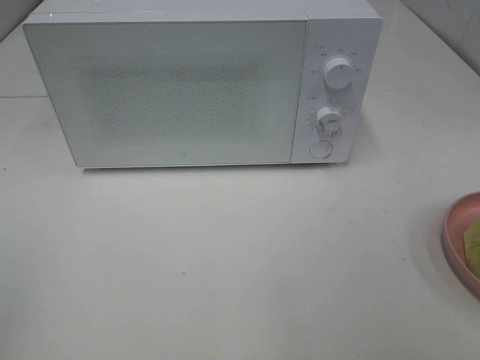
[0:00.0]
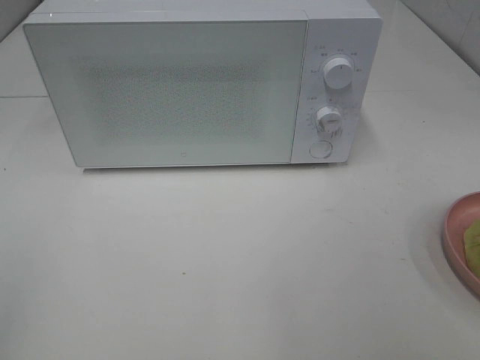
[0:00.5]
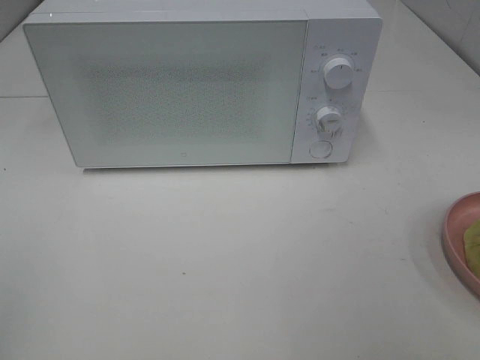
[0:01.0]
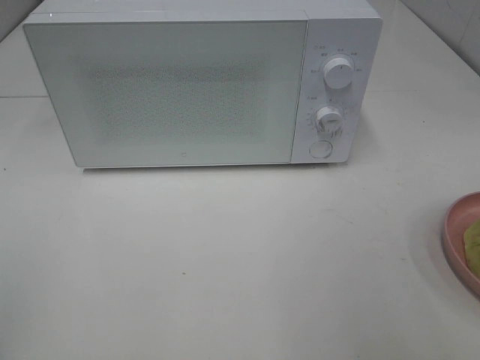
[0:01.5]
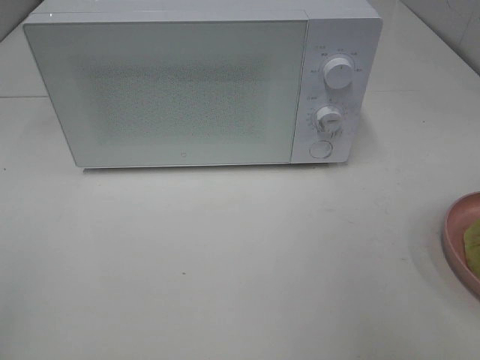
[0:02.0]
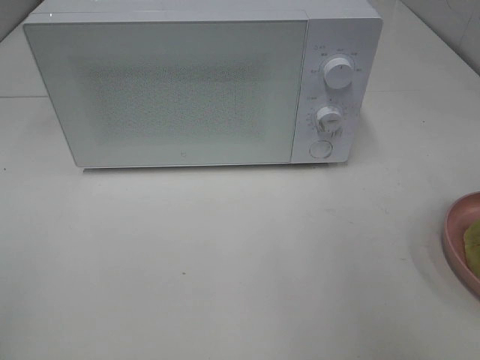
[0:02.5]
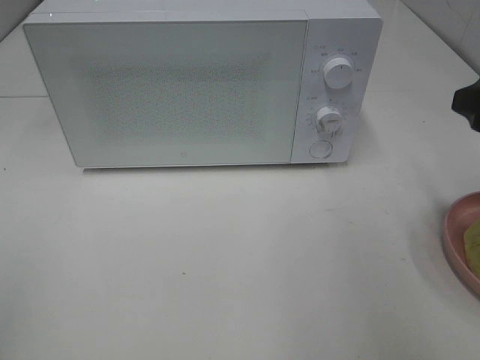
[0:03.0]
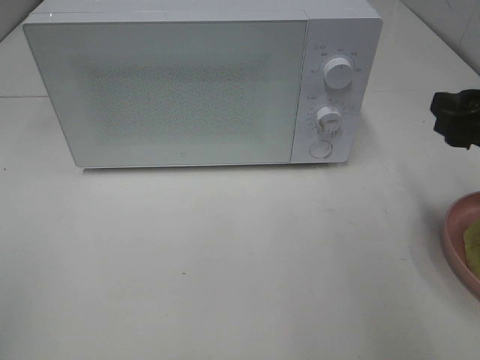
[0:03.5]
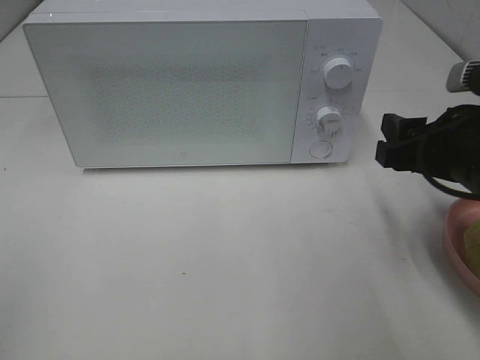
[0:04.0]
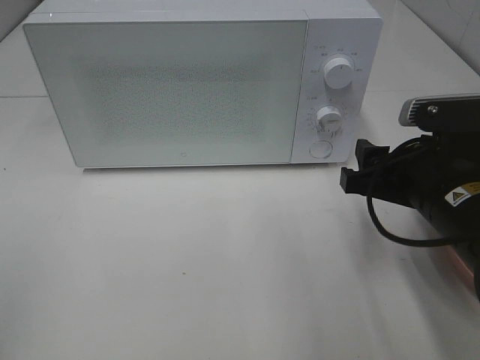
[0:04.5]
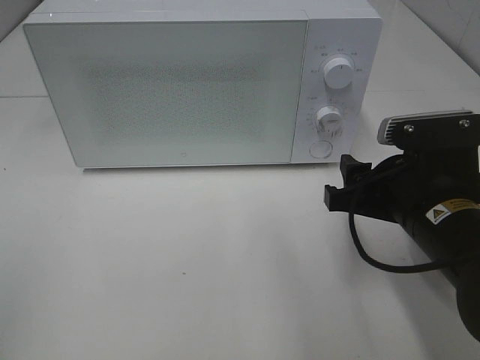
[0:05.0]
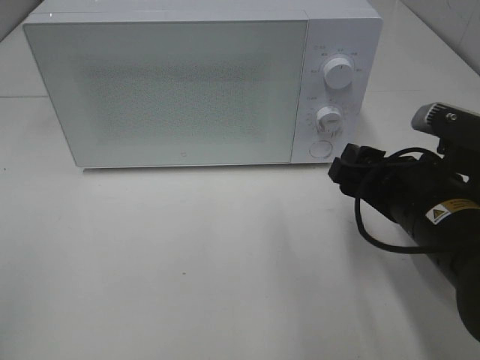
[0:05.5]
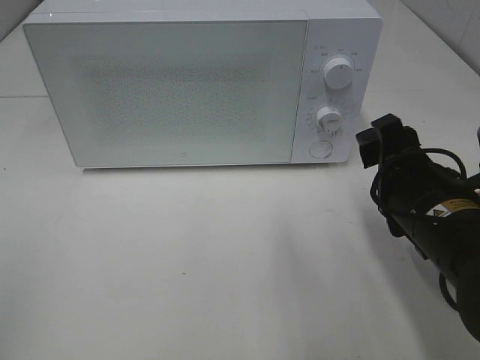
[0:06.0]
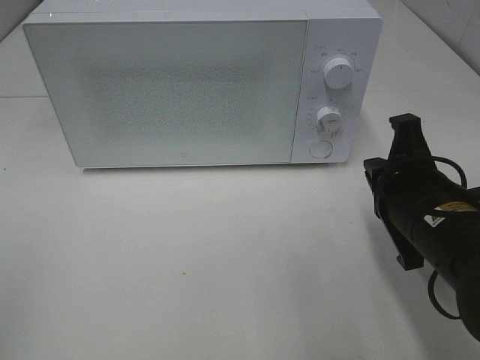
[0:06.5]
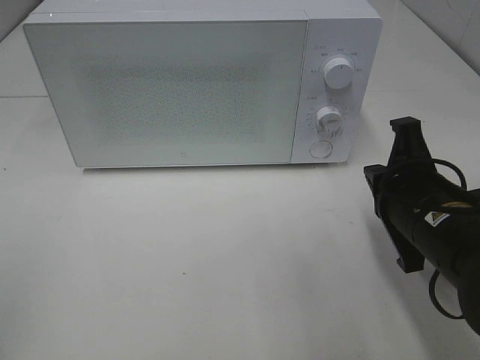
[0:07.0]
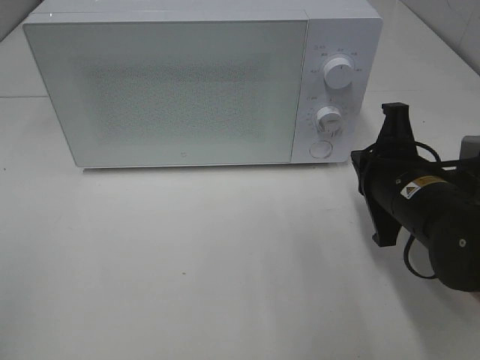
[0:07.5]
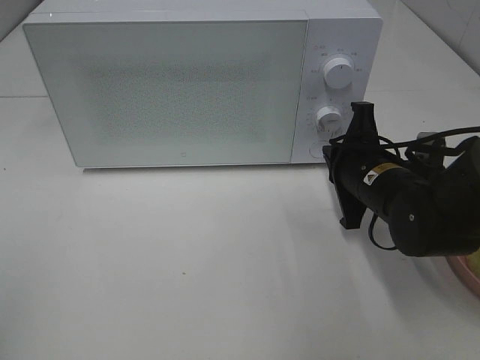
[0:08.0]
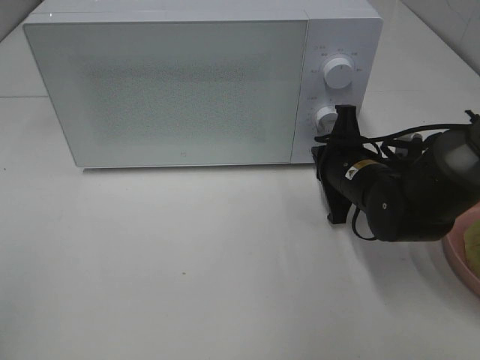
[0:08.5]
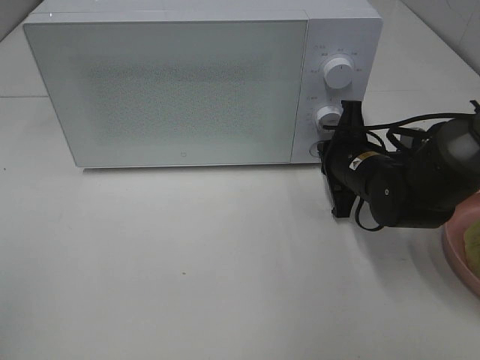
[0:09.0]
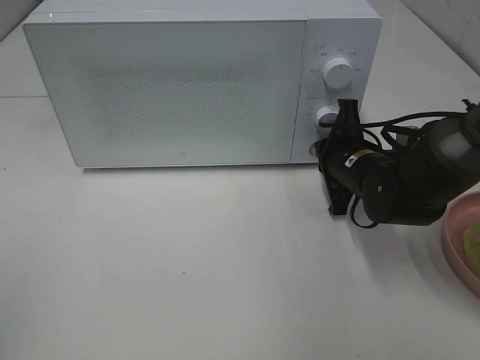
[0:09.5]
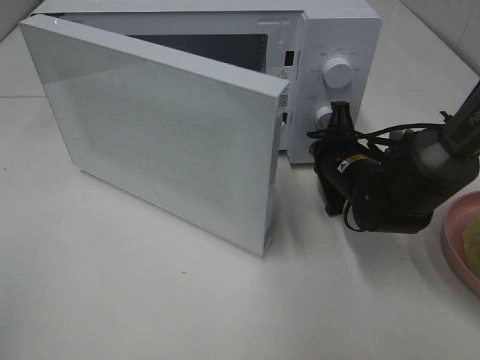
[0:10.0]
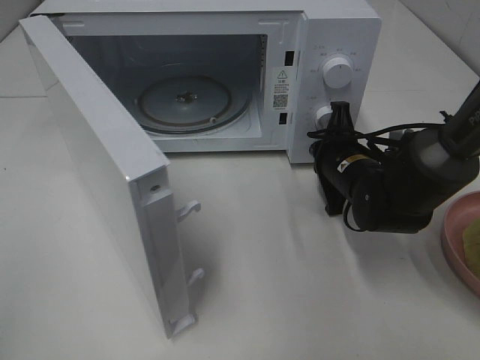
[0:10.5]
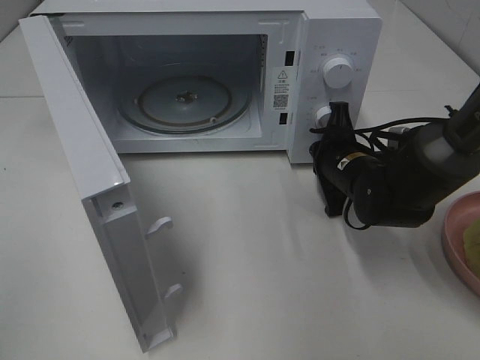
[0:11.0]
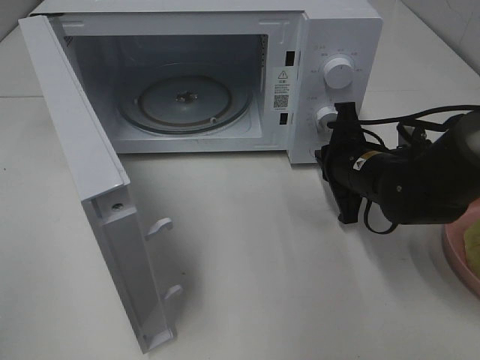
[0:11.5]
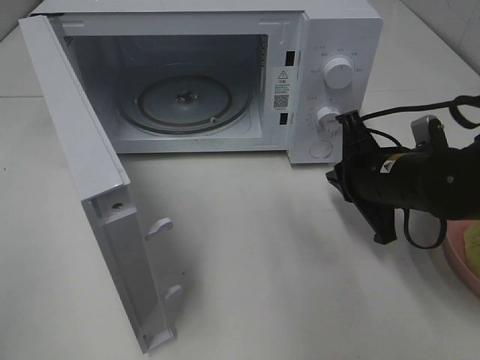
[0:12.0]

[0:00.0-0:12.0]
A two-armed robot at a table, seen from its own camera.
Task of the whole recording: Heat Sandwich.
Step, 0.0 to 11.5 s: Right hand: press the switch.
2.0 to 4.0 s: The right gripper goes roughly 15 cm downward, forward and to the left.
4.0 to 6.0 s: The right gripper moves approximately 5 cm.
6.0 to 8.0 s: The right gripper goes about 10 cm forward, and closes up.
8.0 to 10.0 s: The right gripper goes approximately 5 cm forward.
10.0 to 12.0 s: The right gripper is displaced backward by roughly 5 cm.

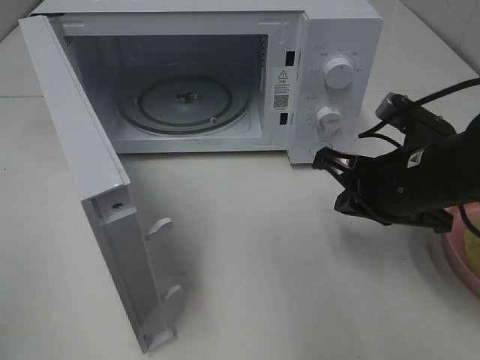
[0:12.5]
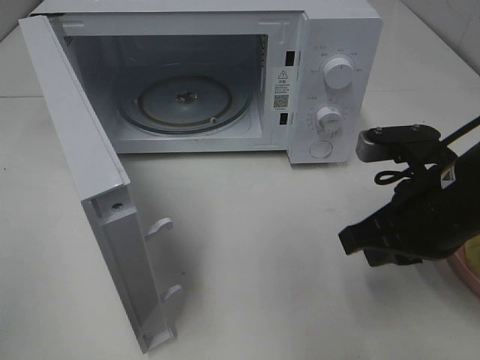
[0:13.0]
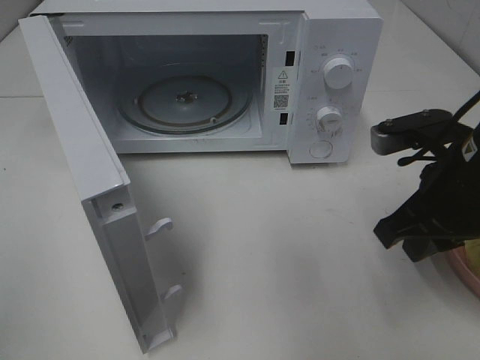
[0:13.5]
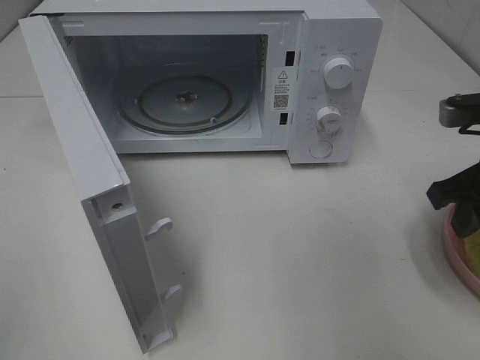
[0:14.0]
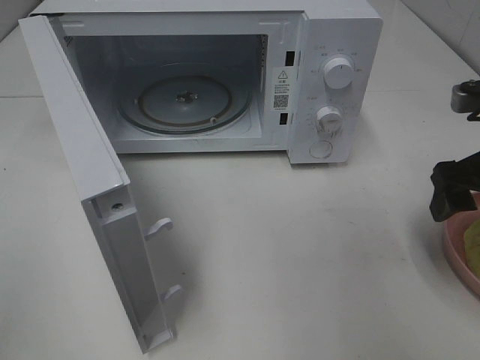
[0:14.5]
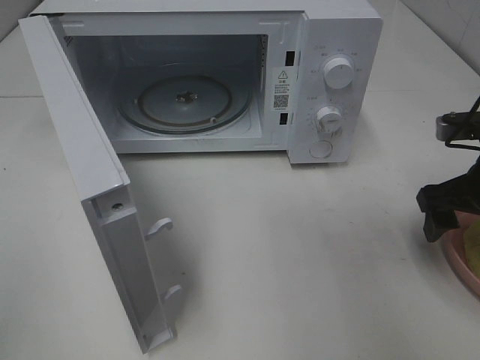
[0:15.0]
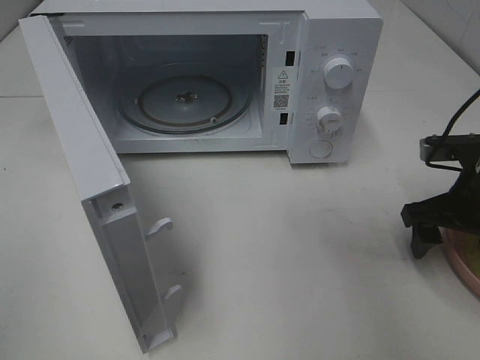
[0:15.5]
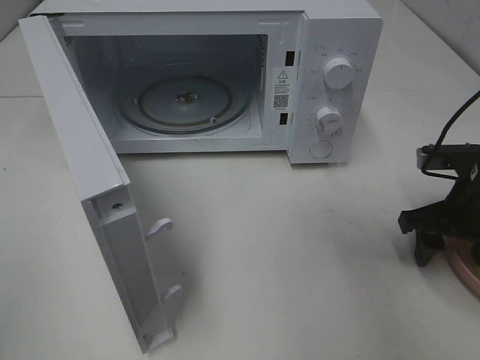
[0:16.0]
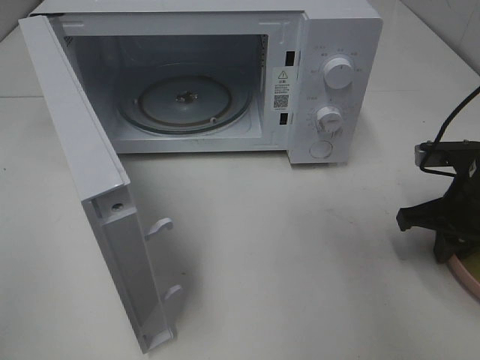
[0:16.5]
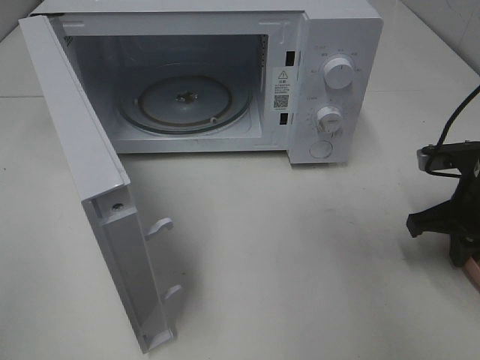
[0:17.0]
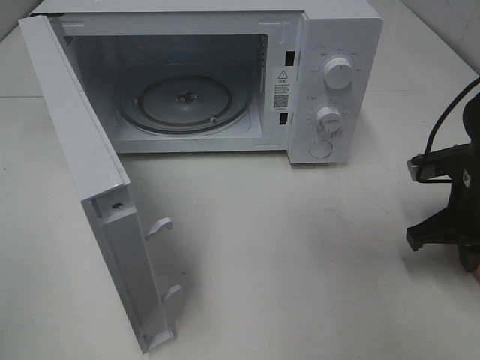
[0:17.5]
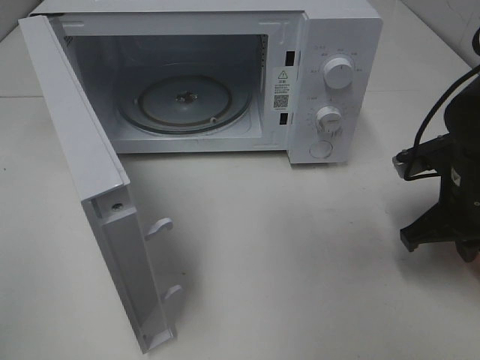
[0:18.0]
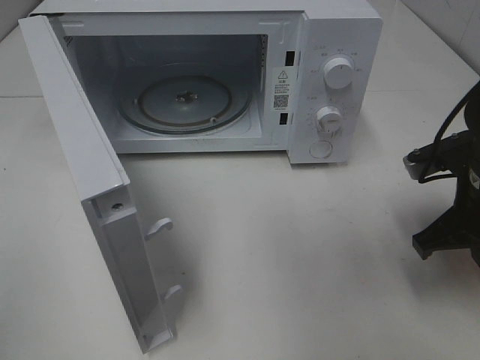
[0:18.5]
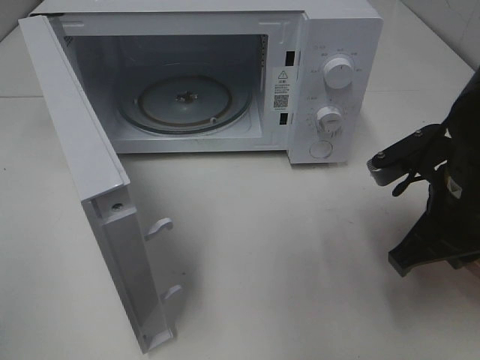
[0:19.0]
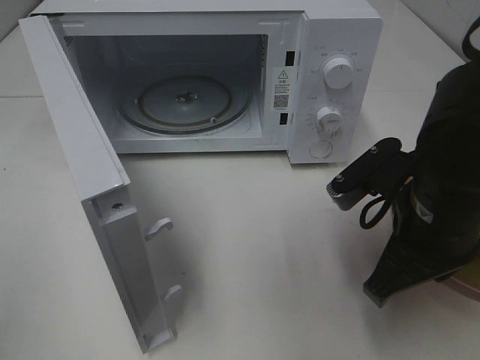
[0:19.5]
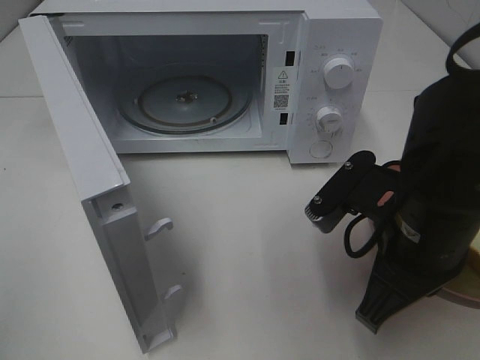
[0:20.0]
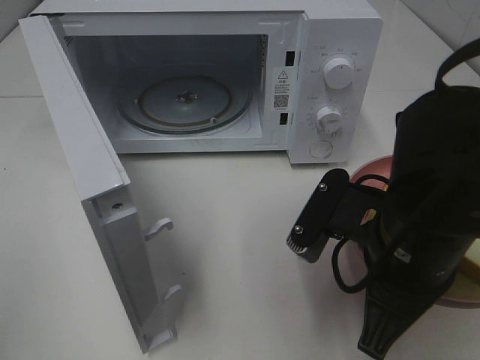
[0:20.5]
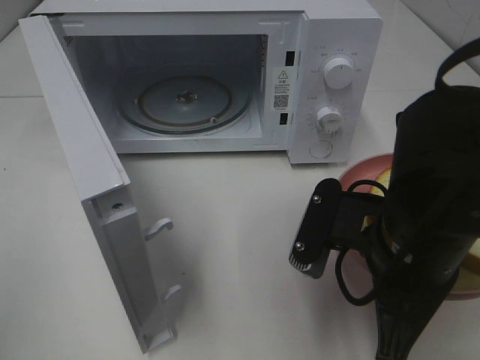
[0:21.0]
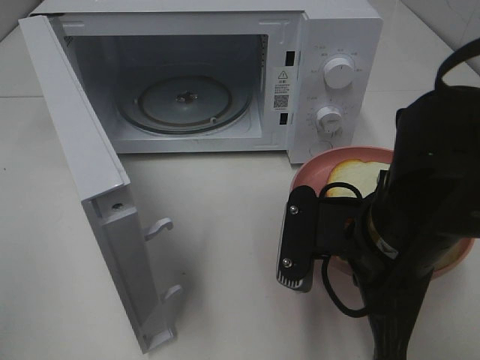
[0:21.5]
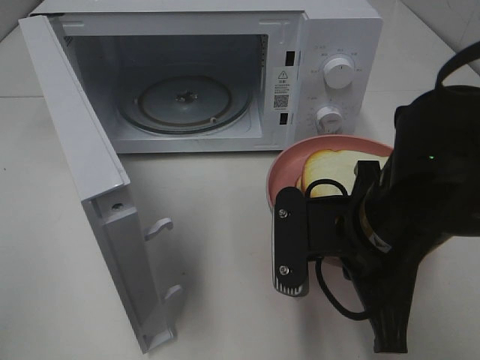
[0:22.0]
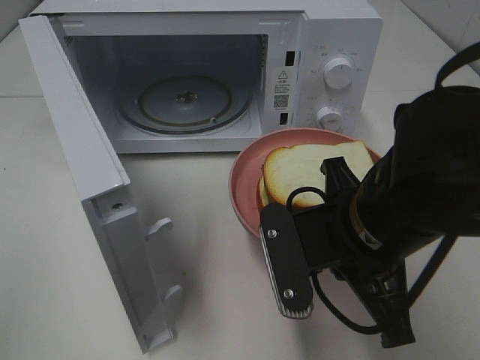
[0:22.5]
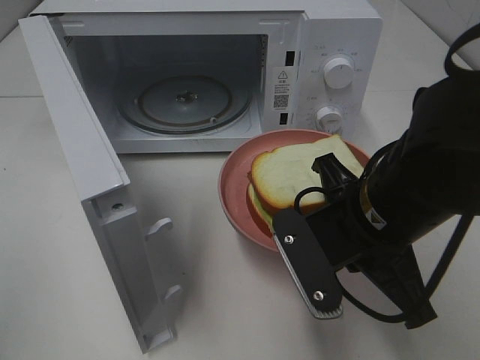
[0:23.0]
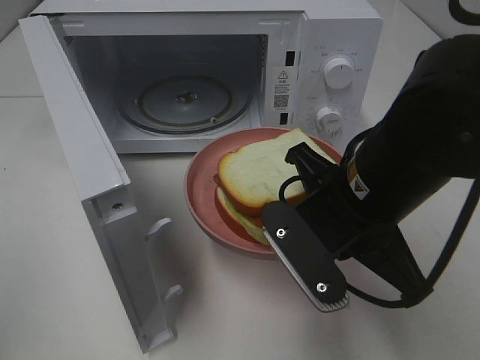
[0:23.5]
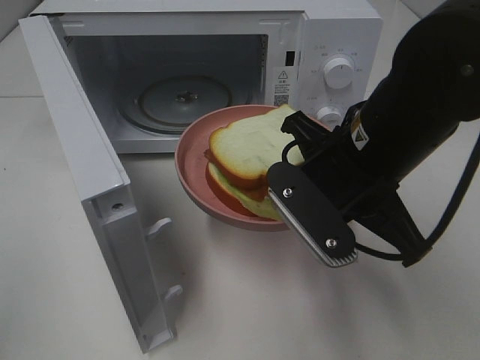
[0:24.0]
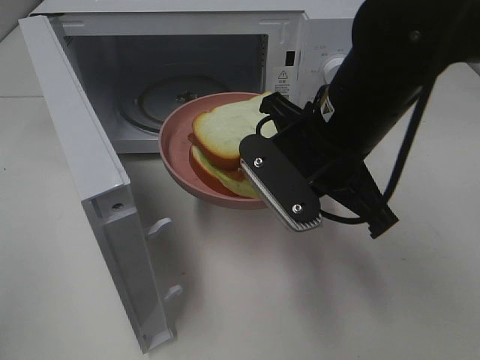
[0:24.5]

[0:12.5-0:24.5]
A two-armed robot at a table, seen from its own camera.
Task of the whole recording: Heat Sandwich.
Step, 12.5 to 16.5 s: Right hand: grab the plate with the sandwich.
12.5 to 14.5 s: The right gripper heads to the right, covering about 10 cm, and opens up.
14.5 to 16.5 s: The right gripper is displaced downward by roughly 10 cm, and closes its fingers.
16.5 to 18.5 s: The right gripper changes place by approximately 5 cm.
18.5 to 20.5 s: The right gripper shifts roughly 15 cm to the left and backward.
22.5 to 24.5 s: The right gripper shifts approximately 5 cm forward.

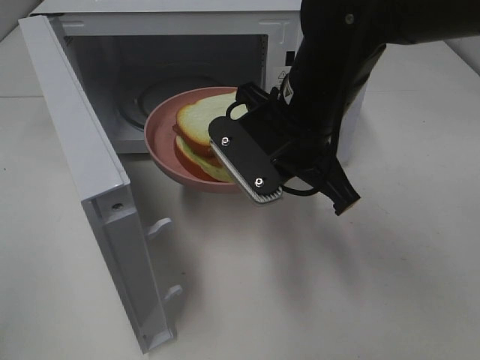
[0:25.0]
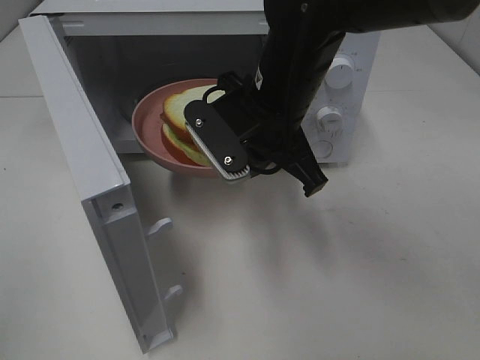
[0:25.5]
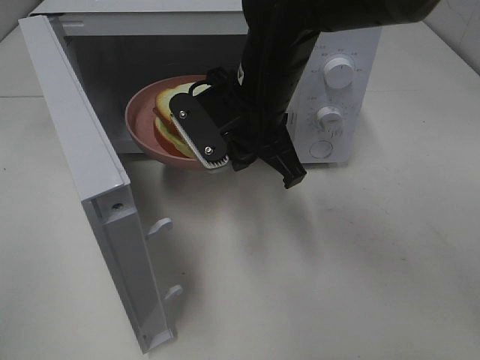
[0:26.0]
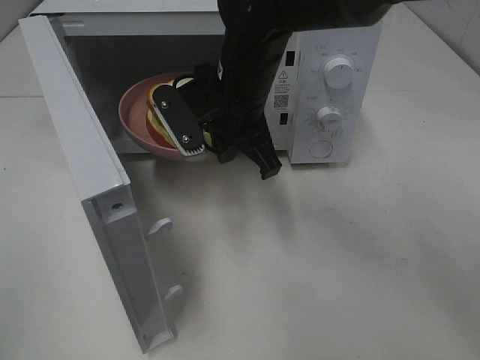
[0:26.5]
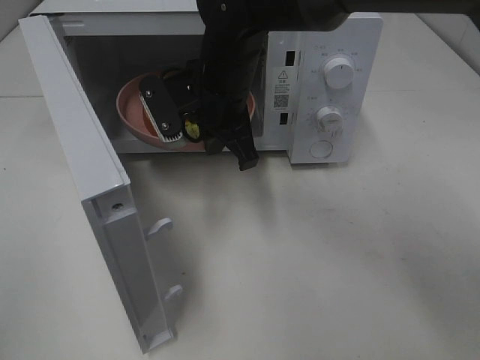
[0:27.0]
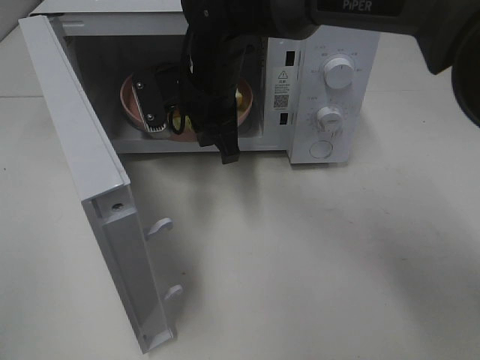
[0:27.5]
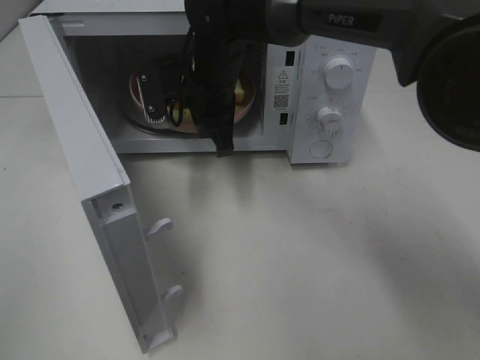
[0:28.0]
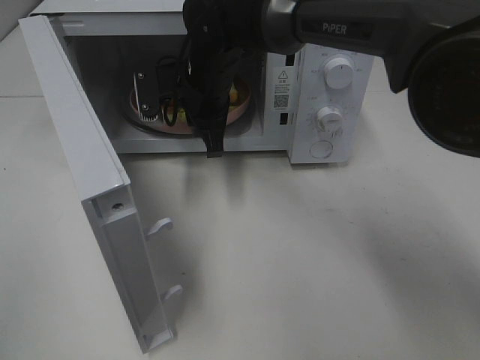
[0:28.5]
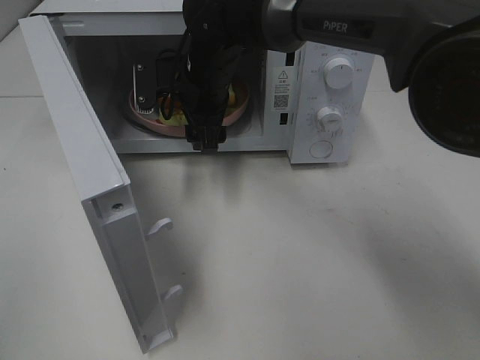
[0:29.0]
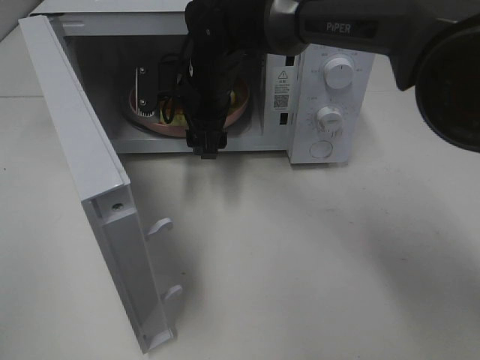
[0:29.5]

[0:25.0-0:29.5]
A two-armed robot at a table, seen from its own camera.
Task of the whole recording: Heat Sandwich.
25.0 to 27.0 s: The right gripper travels forward and to the left by about 10 cm.
27.0 to 29.5 s: The right gripper shifts by approximately 5 cm, and opens up.
